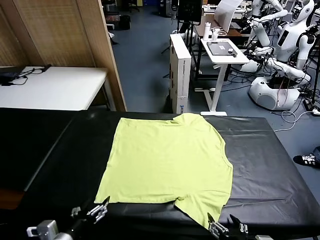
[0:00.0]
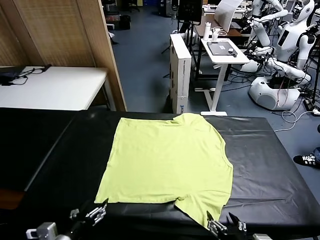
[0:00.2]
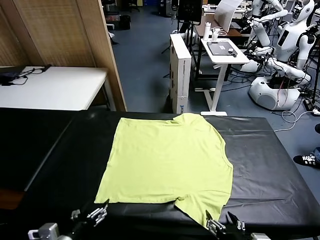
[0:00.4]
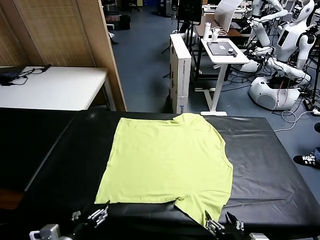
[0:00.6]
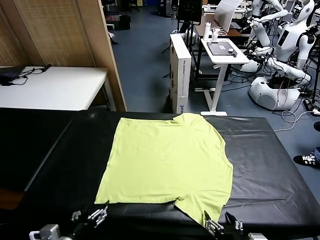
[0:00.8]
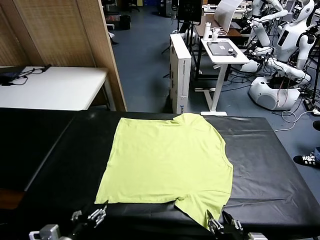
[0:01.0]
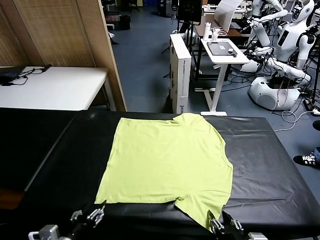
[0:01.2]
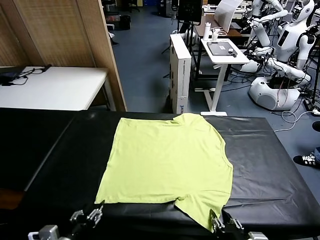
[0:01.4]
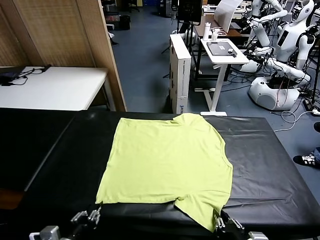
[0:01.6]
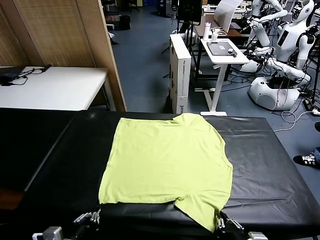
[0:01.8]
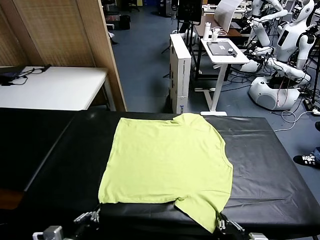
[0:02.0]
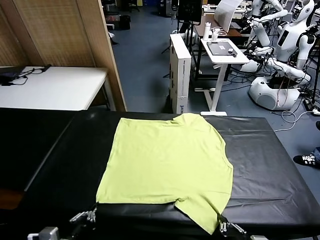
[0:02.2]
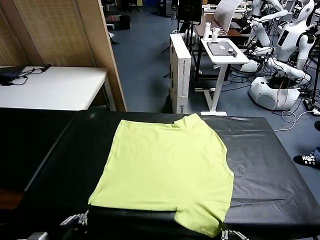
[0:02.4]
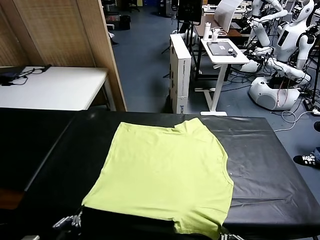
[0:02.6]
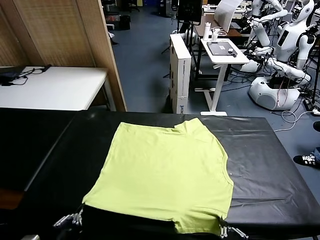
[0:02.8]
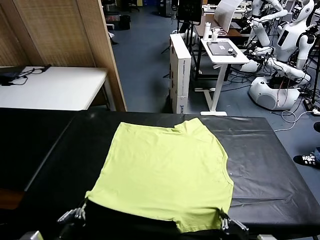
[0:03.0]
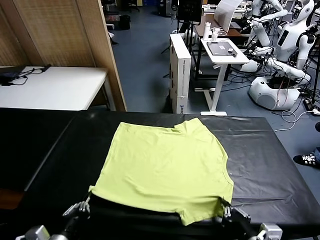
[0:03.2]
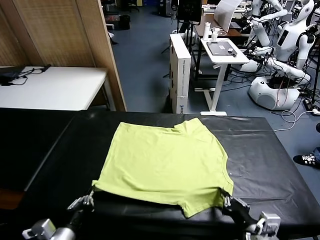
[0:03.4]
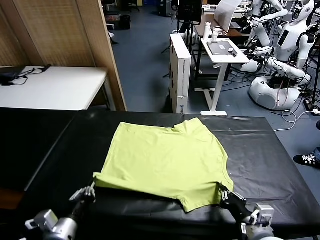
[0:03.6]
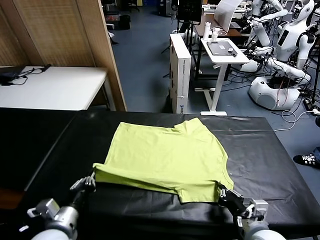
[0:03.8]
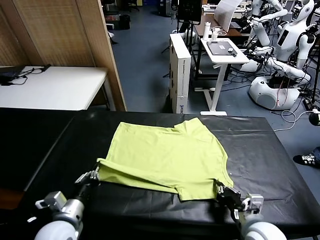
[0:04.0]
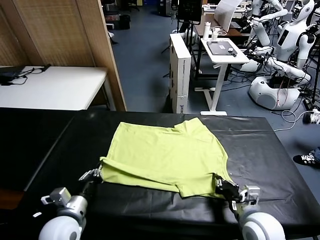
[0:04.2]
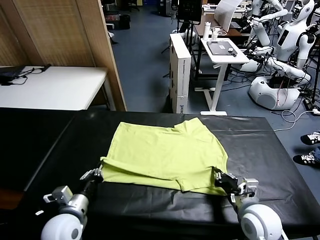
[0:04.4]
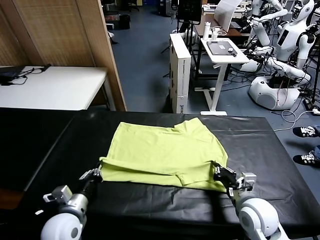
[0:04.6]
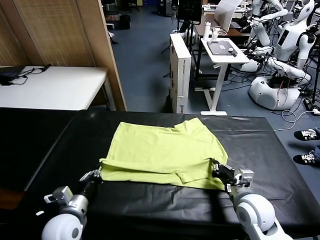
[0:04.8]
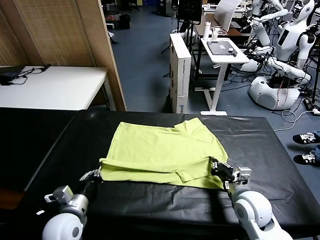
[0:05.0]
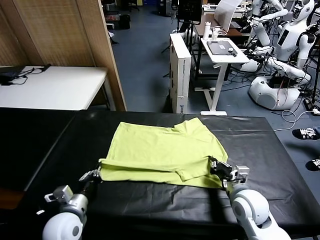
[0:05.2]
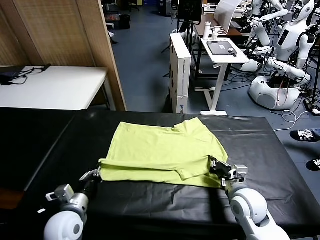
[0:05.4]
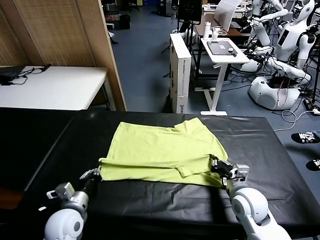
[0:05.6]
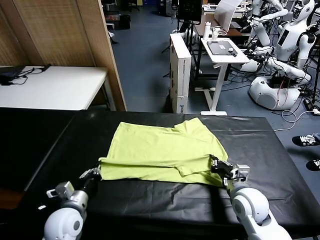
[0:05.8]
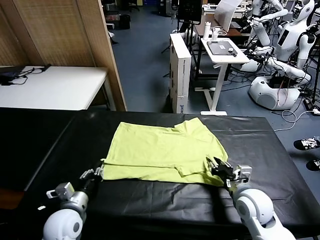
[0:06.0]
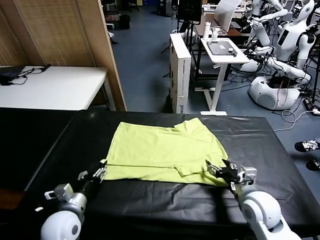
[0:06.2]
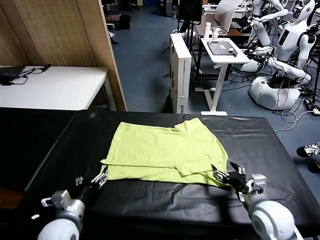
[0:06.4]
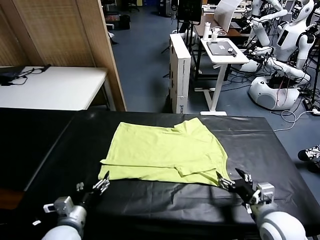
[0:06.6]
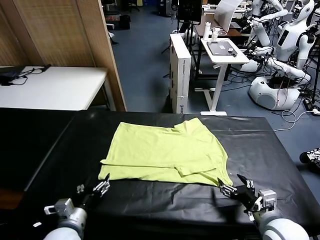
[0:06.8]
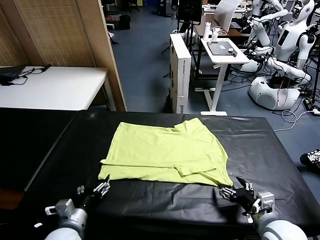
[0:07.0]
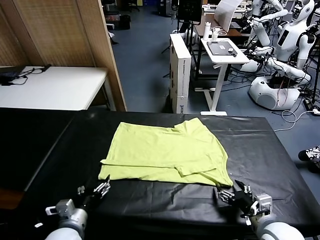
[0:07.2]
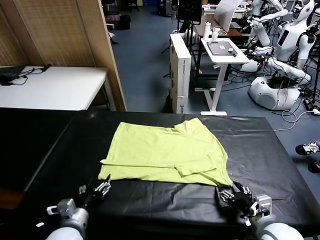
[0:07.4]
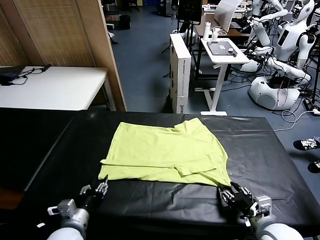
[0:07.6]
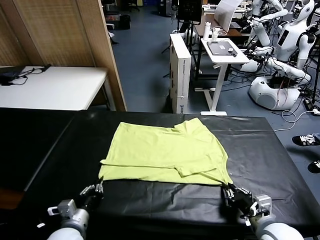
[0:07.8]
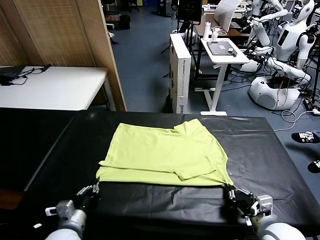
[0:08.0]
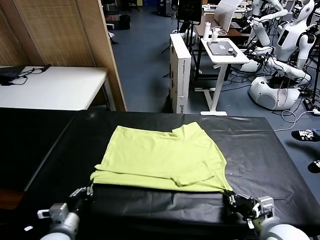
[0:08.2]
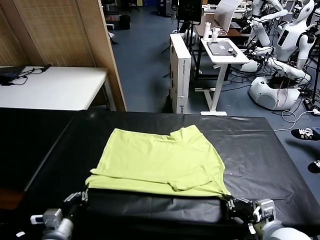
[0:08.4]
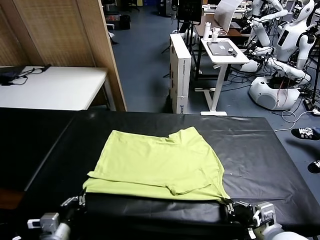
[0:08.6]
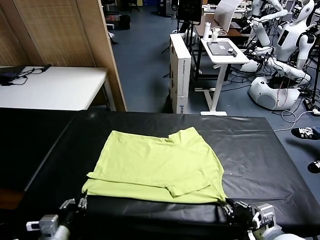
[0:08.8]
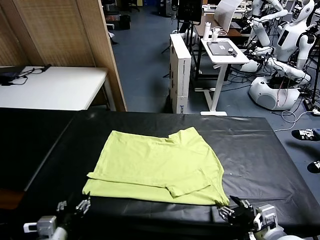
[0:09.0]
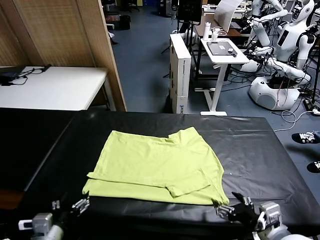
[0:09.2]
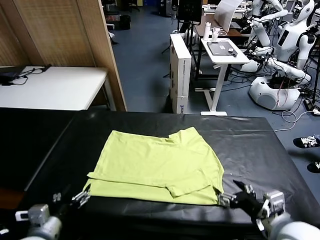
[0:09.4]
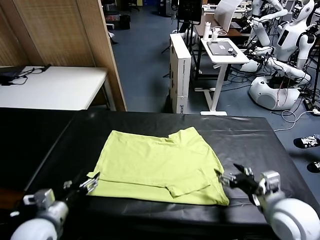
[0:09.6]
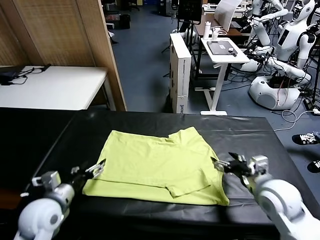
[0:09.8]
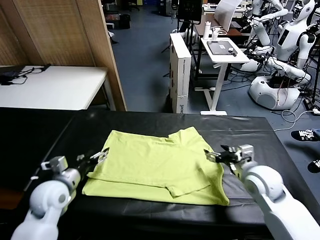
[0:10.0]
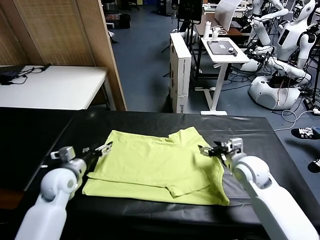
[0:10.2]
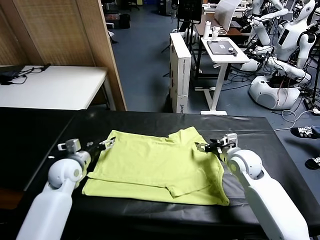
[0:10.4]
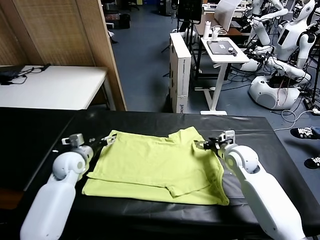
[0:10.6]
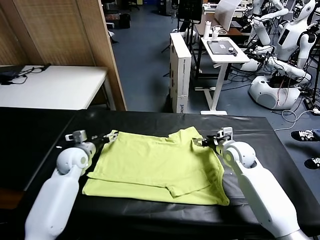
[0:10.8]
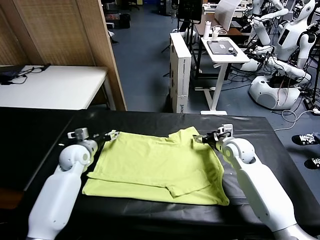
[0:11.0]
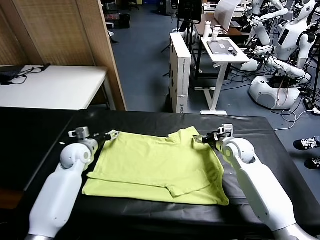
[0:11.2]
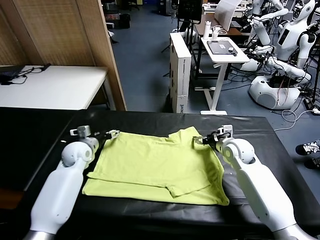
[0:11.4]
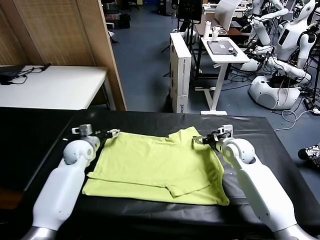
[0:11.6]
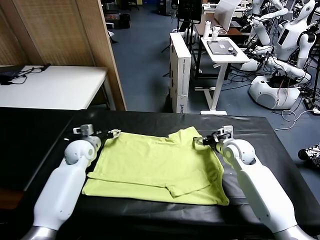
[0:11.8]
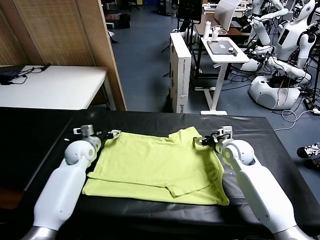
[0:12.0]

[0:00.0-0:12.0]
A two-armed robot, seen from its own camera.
Task of the whole recording: fold and organize the clothes.
Step, 0:00.0 to 0:02.0: use both grippers simultaneously to clamp the lower edge of the clothing fabric.
Step, 0:02.2 to 0:06.2: use both grippers to drag the lower edge of the fabric forward and fold it over the upper edge.
Step, 0:06.4 to 0:09.0: Drag the clothes downward with both gripper.
0:01.6 to 0:03.0: The right gripper shifts by about 5 cm.
0:03.0 to 0:04.4: Both grippers travel together forward, about 15 cm.
0:04.4 to 0:06.0: The right gripper opens its fingers. Meanwhile the left gripper opens.
0:06.0 to 0:07.6: The left gripper closes; the right gripper goes some 5 cm backward, and closes its fingers.
0:07.6 to 0:09.0: The right gripper goes roughly 10 cm upward, and opens up, while the left gripper moves backward, about 5 cm, and opens.
0:09.0 to 0:10.4: Both grippers move forward, about 30 cm.
0:10.4 to 0:12.0: The left gripper shifts roughly 5 cm forward, and closes.

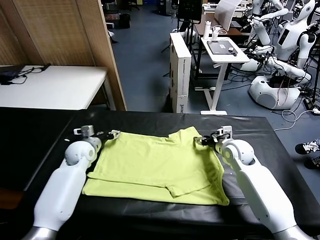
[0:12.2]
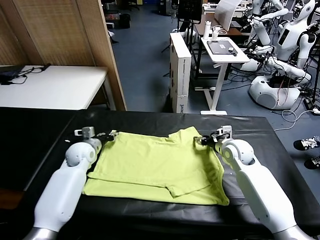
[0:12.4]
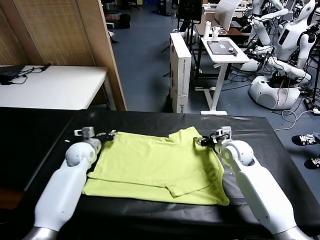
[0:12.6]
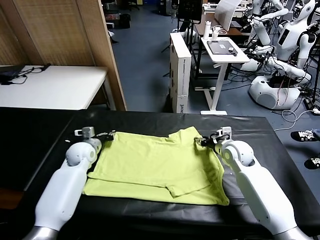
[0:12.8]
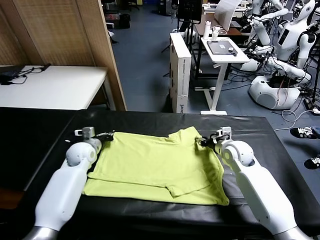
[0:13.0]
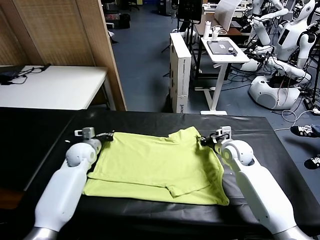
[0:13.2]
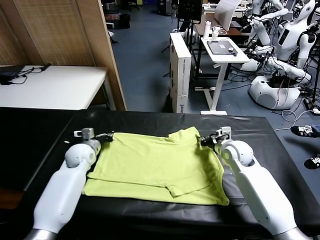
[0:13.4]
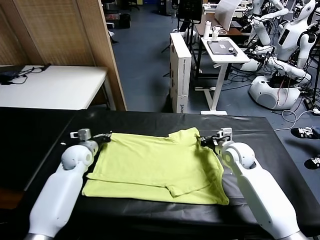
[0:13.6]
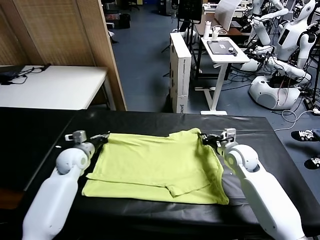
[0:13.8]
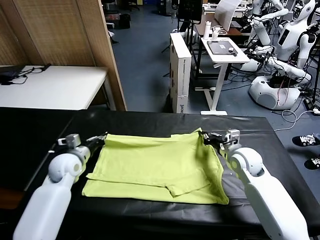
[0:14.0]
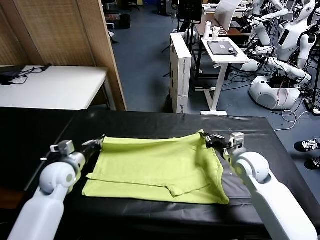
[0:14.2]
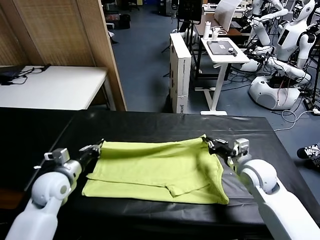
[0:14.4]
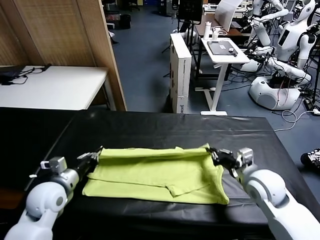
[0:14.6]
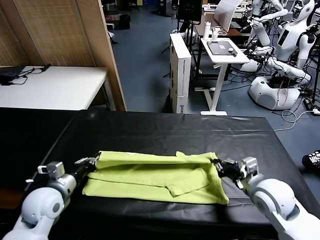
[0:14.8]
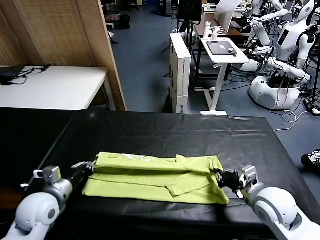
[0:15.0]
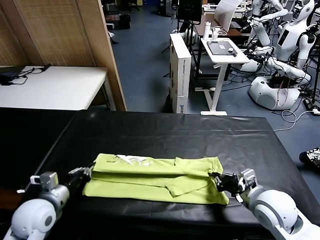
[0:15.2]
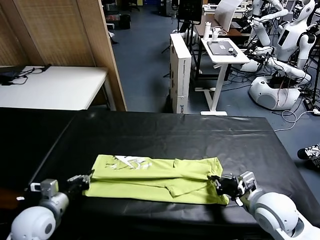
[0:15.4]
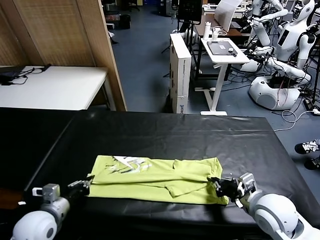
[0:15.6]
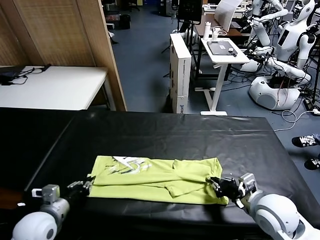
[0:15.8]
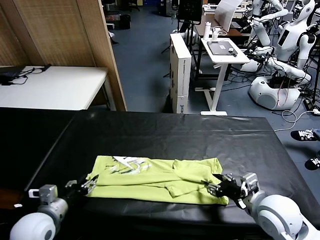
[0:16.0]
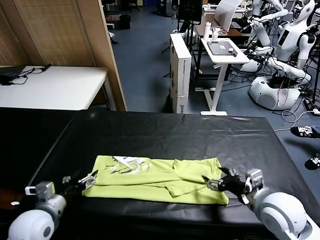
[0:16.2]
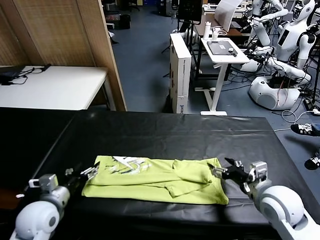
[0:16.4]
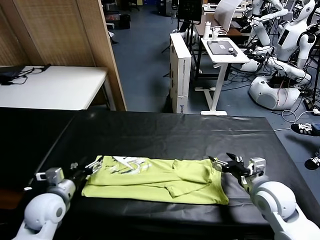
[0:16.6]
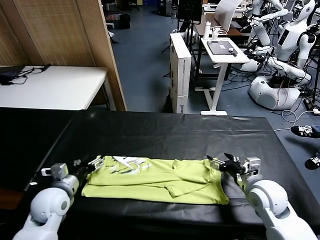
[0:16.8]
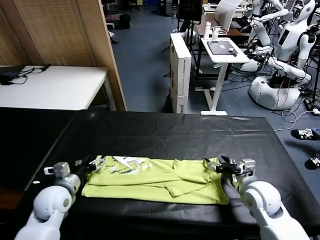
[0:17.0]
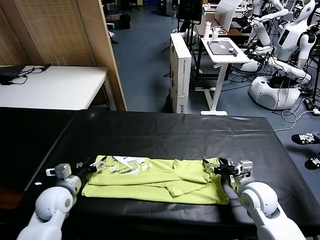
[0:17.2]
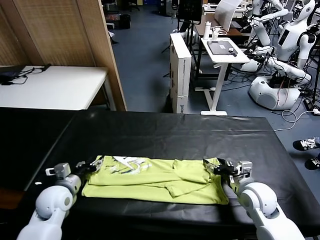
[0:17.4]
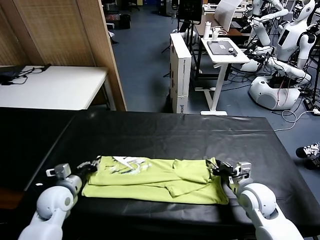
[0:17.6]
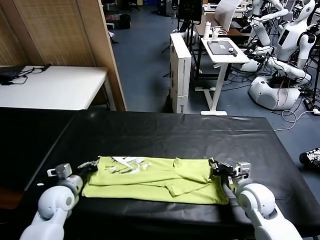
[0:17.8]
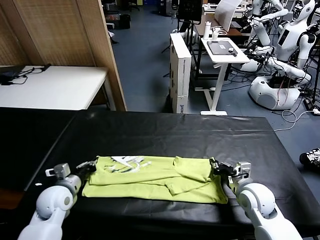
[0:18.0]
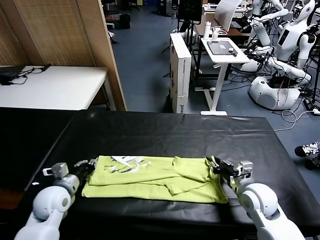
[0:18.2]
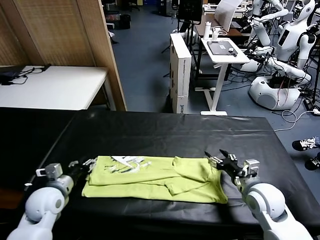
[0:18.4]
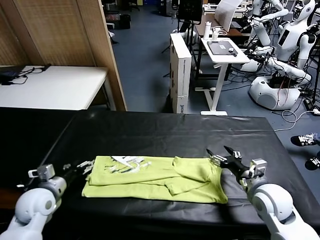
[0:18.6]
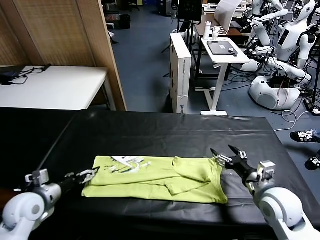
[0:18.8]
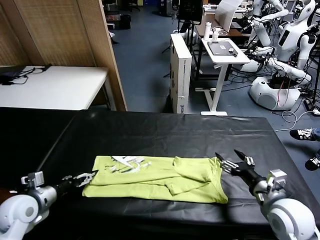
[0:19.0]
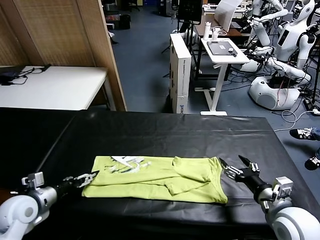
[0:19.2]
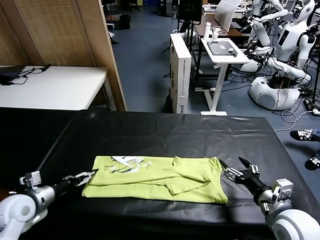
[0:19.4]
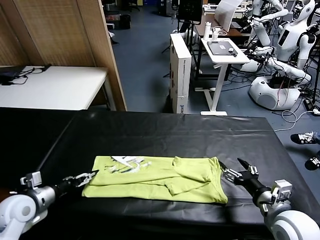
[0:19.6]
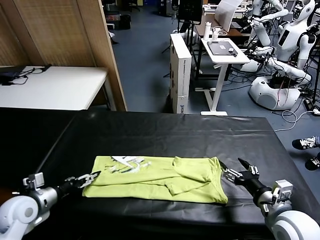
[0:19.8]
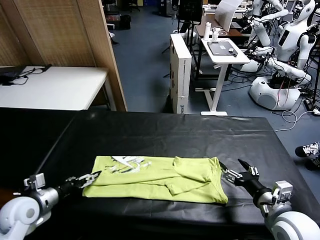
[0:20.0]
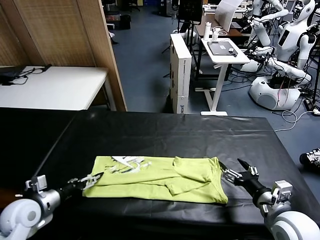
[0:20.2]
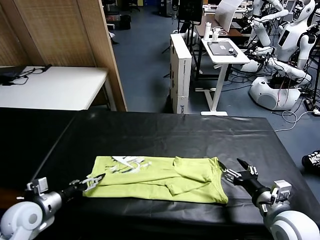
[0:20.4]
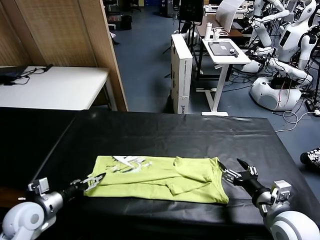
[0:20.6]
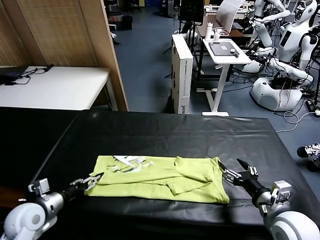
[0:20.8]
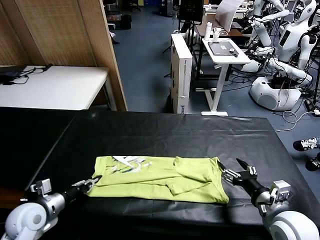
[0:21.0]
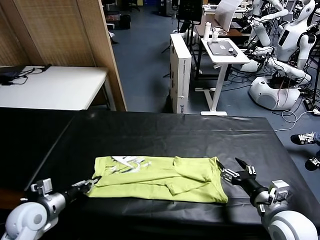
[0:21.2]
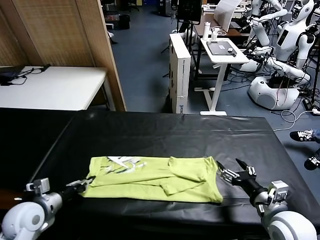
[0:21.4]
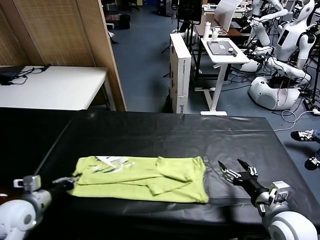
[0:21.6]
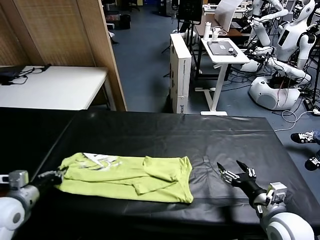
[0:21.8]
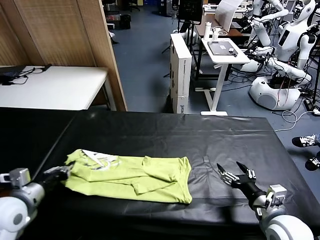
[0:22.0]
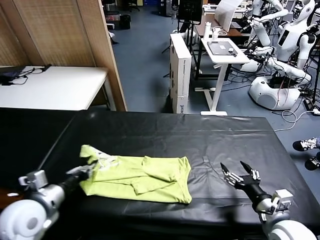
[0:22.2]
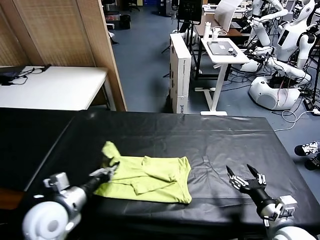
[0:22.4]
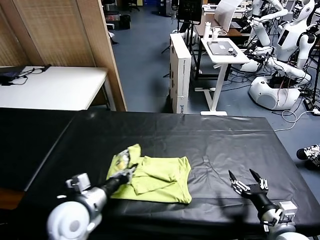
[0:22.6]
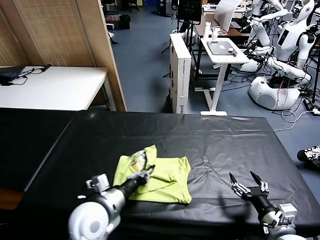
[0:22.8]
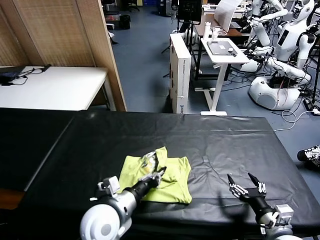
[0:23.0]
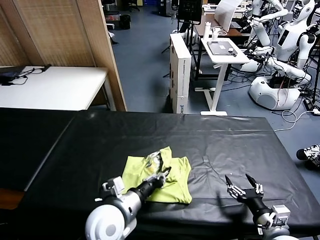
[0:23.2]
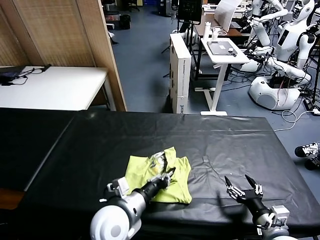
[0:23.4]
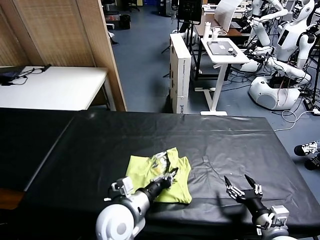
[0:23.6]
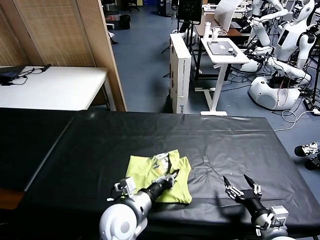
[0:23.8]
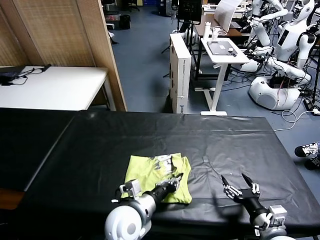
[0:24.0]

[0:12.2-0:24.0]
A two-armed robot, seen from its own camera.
Task of the whole recording: fold and organize the clothes.
Step, 0:13.6 to 0:16.0: use both grippers to drag the upper edge of the fabric backward and fold it over the lower edge.
Step, 0:16.2 to 0:21.0: use the left gripper to clamp the left edge of the fabric.
0:12.2 to 0:13.6: The right gripper closes its fingers.
0:13.6 to 0:15.2: The grippers both shift backward by approximately 20 cm. The left gripper opens up.
0:15.2 to 0:16.6: The left gripper moves about 5 cm, while the right gripper changes place by some 5 cm, and opens up.
0:16.6 to 0:18.2: The right gripper closes, while the left gripper closes, then opens again.
0:18.2 to 0:19.6: The left gripper shifts approximately 10 cm to the left. Meanwhile the right gripper moves backward and upward, roughly 10 cm, and opens up.
0:19.6 to 0:21.0: The left gripper closes its fingers.
0:21.0 to 0:22.6: The left gripper shifts about 15 cm to the right. Meanwhile the right gripper moves some 5 cm.
0:22.6 to 0:24.0: The left gripper heads to the right, covering about 15 cm, and opens.
